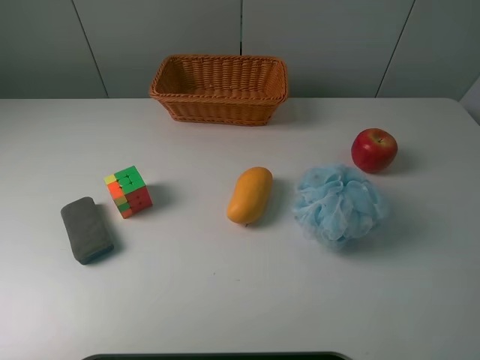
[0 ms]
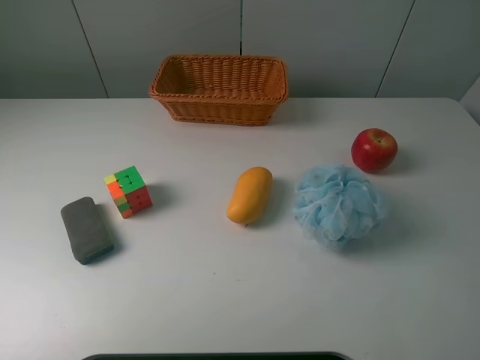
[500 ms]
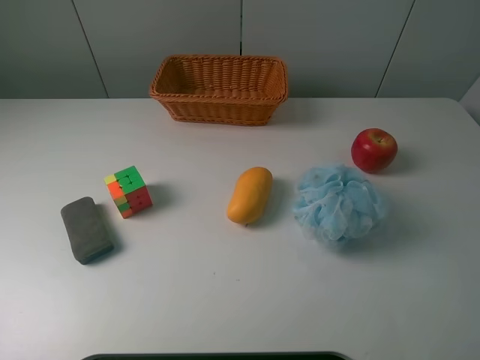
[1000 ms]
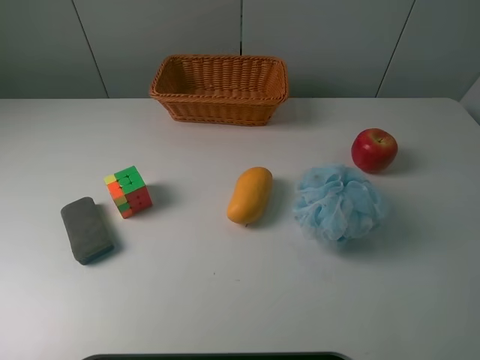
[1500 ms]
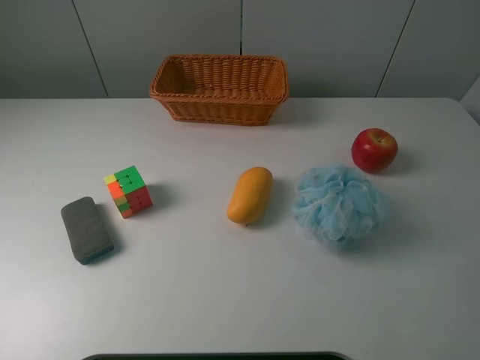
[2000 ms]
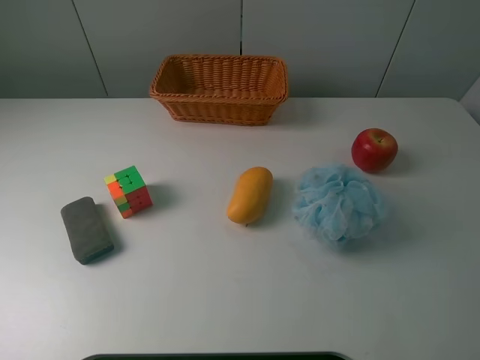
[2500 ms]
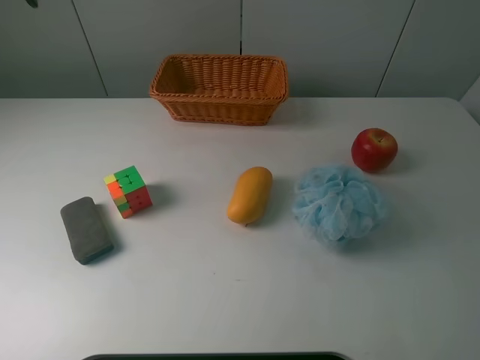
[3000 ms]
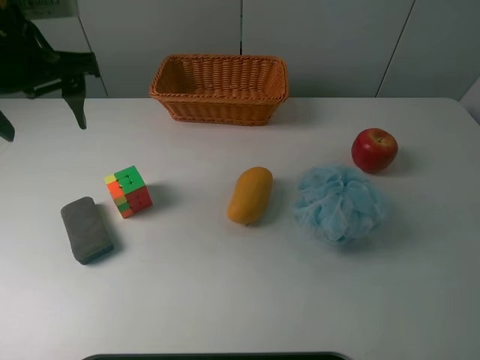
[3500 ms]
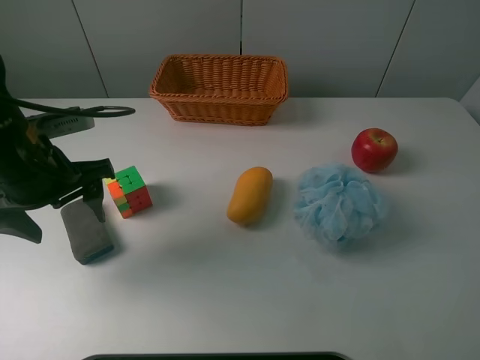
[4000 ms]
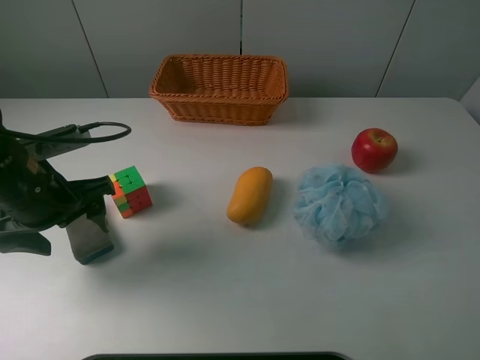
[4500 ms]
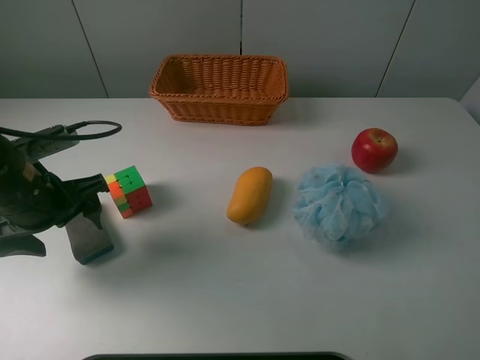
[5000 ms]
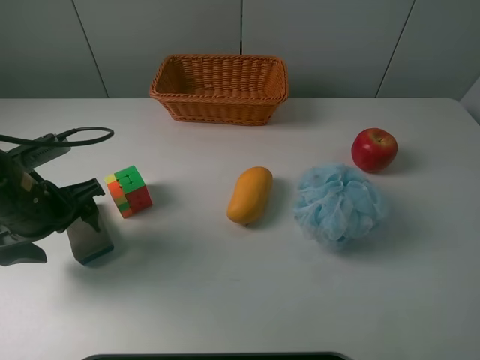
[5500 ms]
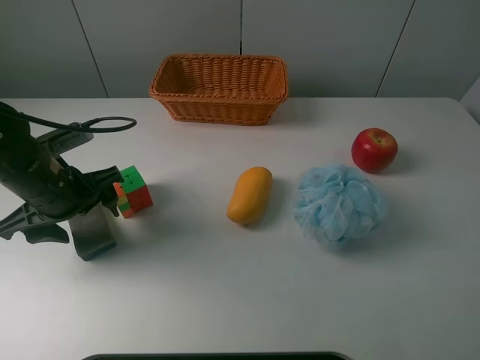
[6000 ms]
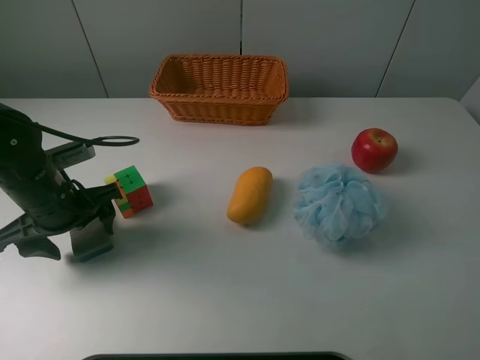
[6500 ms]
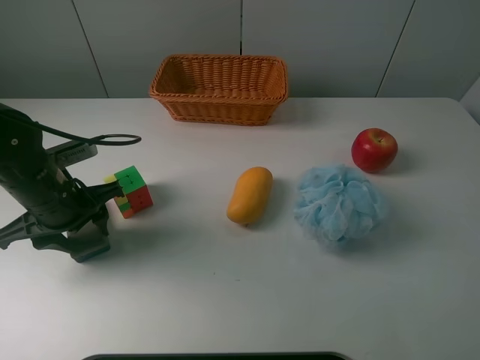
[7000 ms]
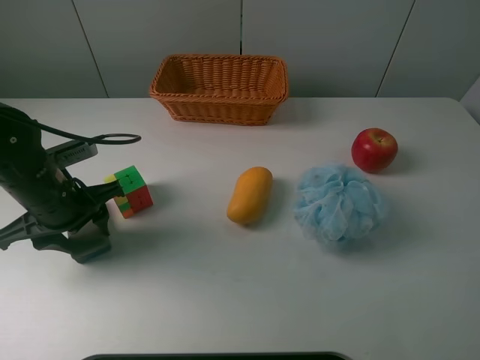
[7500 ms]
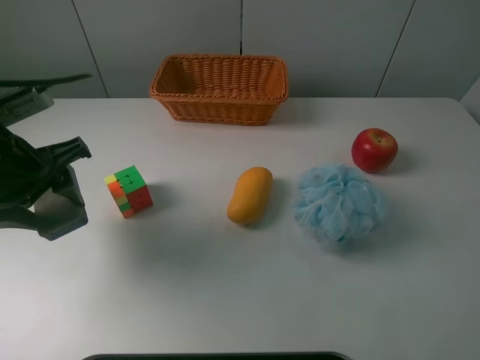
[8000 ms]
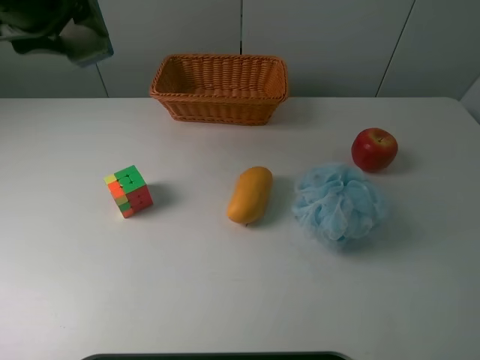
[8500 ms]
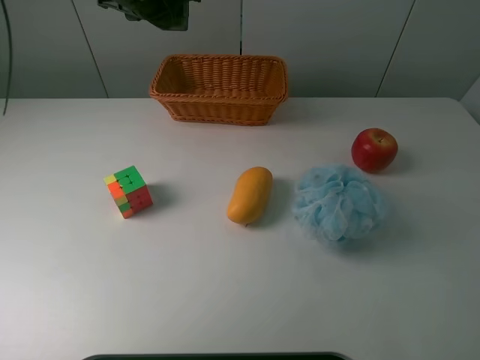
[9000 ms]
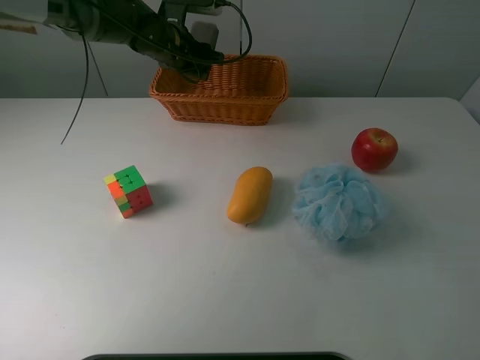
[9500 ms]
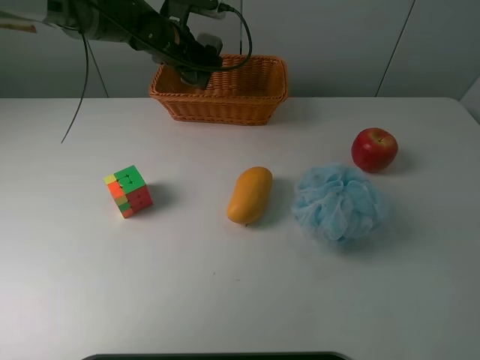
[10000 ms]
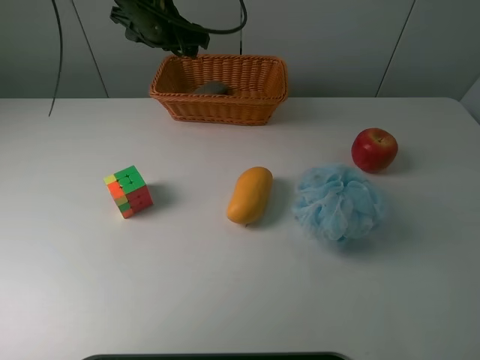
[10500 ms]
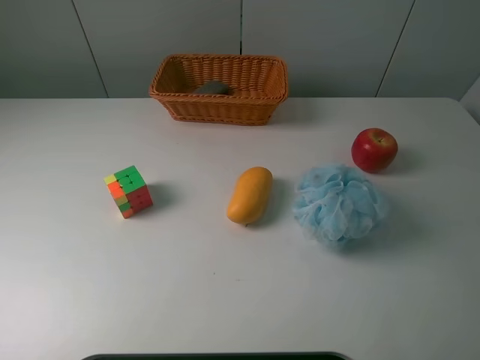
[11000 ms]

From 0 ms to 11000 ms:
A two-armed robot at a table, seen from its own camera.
Task of the whole recording: use a picker to grab the item closest to the cube and place it in the basket.
Step, from 0 ms to 7000 ms: Grasp the blackboard erasure with the left gripper.
Step, from 7500 ms to 10000 ms: Place the blackboard erasure into the basket with the left gripper.
From 2000 ms to 3500 ms: The left gripper is displaced downward, forward and to the right by roughly 25 cm.
From 3500 ms to 5500 ms: The left gripper heads downward, covering approximately 15 cm.
From 5500 ms to 7500 ms: The left gripper closes.
From 7500 ms to 9000 ms: The left gripper shifts roughly 30 cm forward, upward and to the right.
From 9000 ms to 11000 ms: The left gripper moves upward and backward, roughly 30 cm, and opens its fingers.
